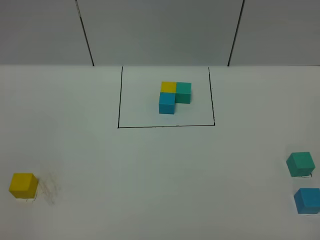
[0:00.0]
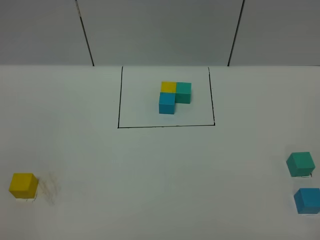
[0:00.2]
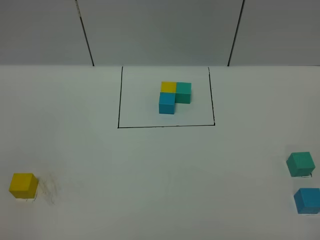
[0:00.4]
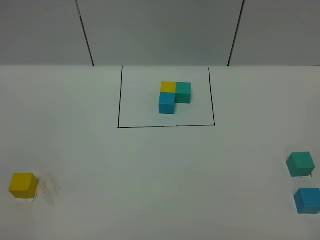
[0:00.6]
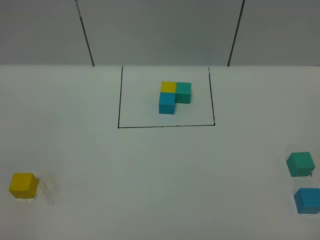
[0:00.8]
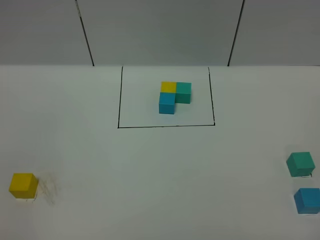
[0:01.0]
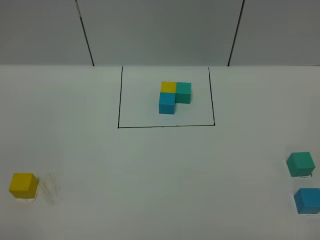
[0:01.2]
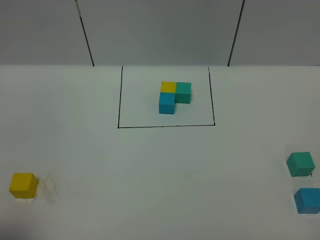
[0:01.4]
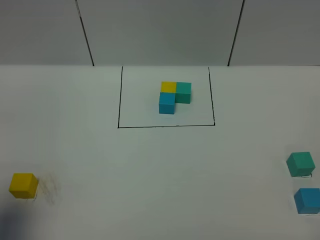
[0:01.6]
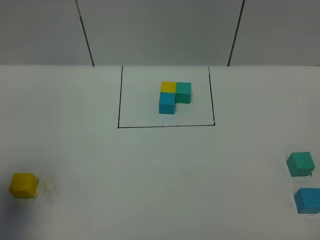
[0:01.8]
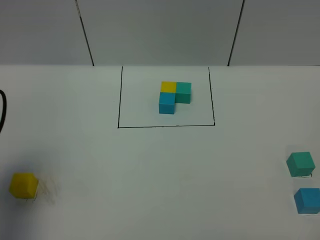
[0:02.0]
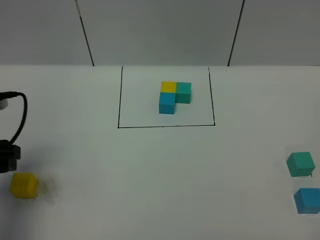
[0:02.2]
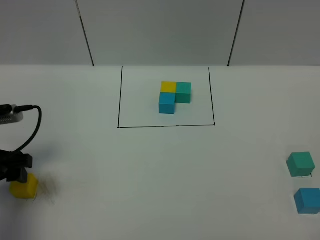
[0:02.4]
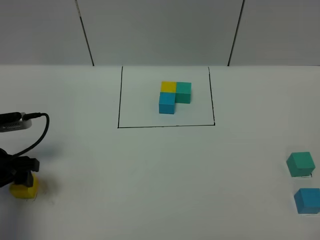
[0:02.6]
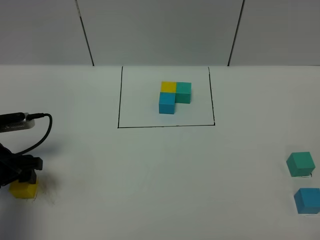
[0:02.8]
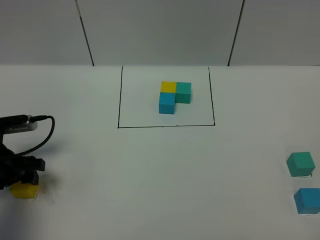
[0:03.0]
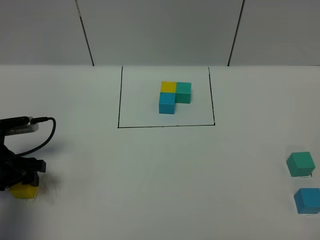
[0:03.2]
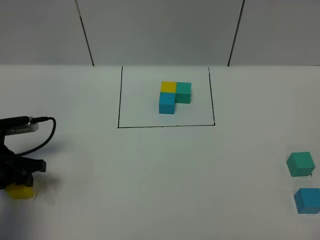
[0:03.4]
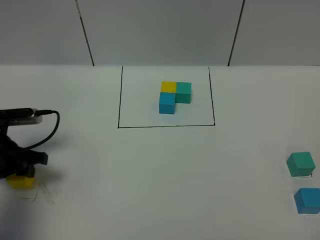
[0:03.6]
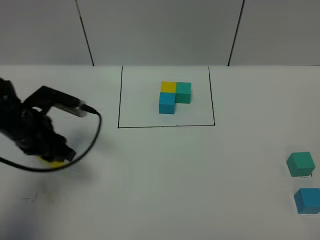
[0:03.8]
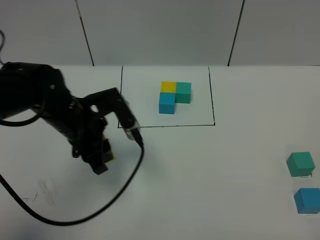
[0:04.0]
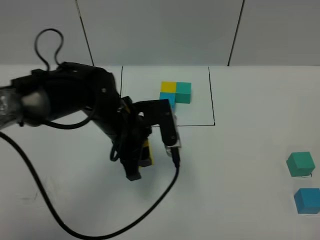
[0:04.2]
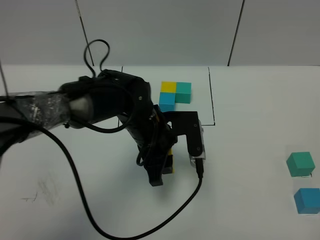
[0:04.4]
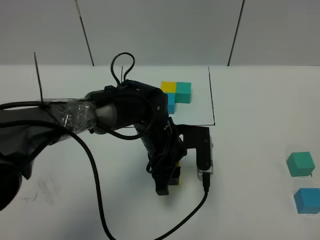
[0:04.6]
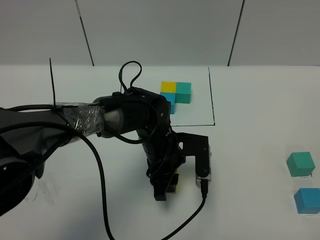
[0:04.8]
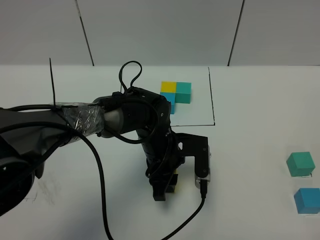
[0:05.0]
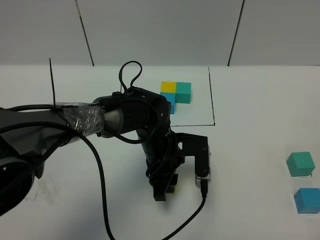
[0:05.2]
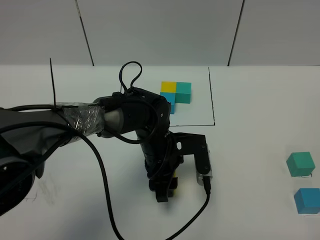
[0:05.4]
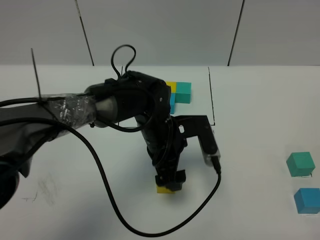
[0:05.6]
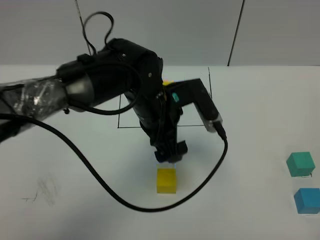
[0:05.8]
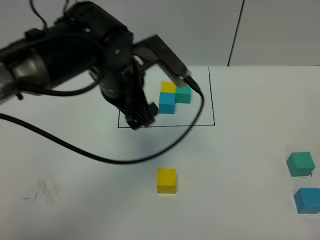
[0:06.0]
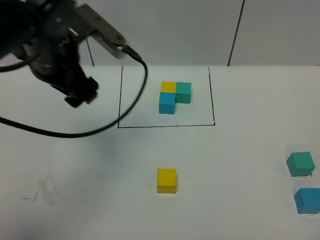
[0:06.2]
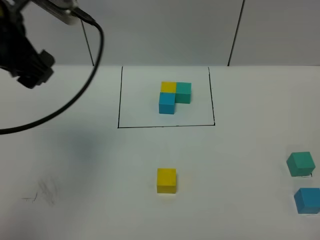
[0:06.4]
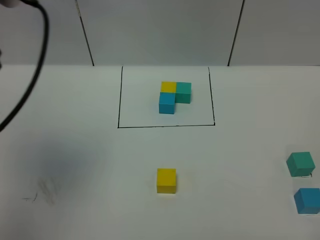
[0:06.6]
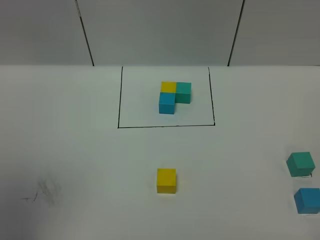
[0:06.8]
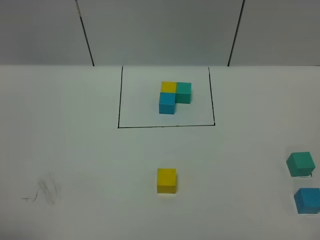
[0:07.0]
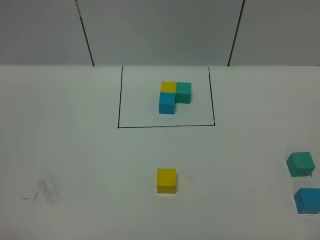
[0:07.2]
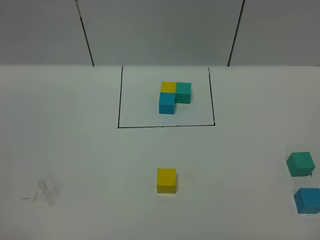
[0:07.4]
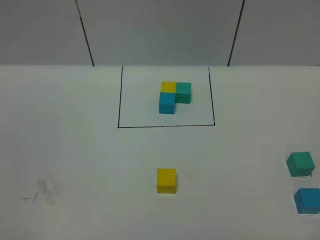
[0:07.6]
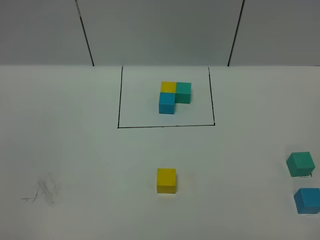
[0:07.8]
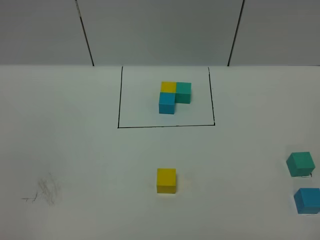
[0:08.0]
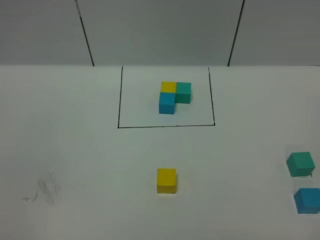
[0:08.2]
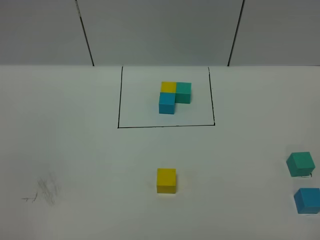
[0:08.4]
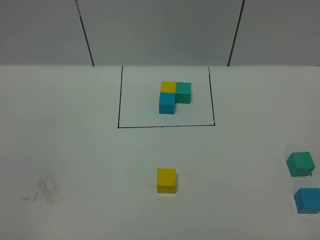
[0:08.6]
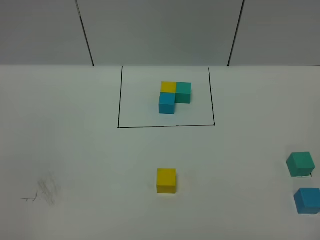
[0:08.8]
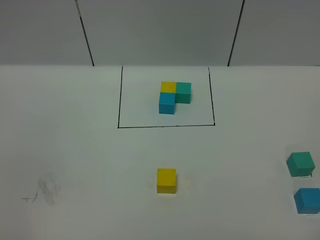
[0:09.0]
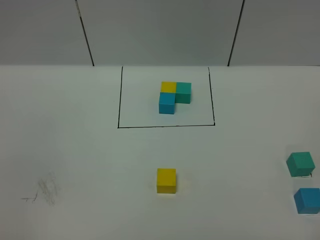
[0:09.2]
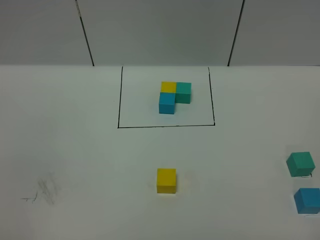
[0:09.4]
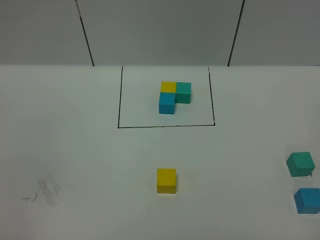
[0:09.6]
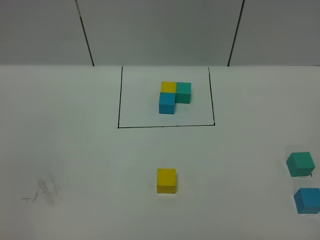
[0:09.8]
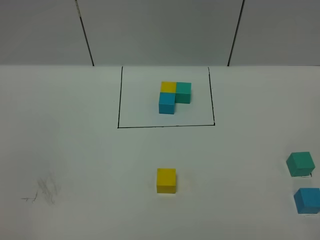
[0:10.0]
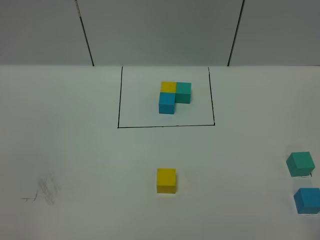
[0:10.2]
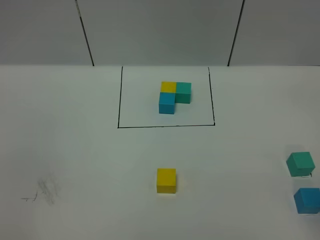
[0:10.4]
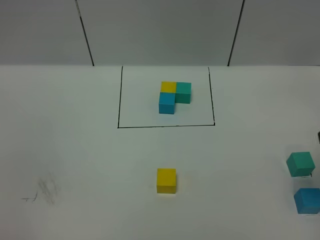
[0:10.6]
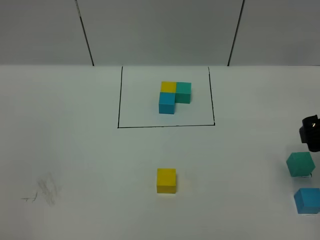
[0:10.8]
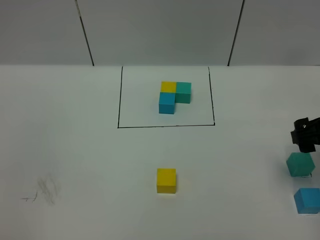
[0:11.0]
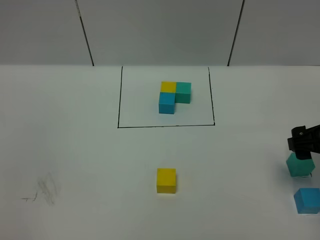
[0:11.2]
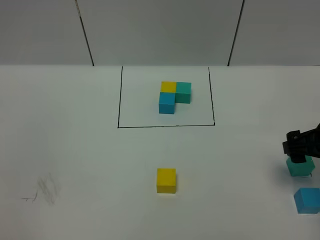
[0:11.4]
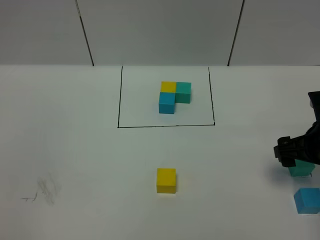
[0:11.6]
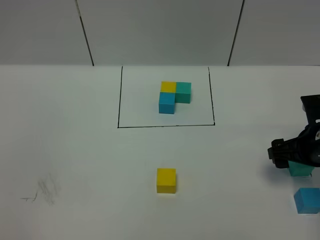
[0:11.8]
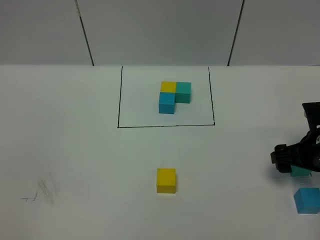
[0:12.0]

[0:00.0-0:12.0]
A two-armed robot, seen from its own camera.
Task of the whole recording: According to the building block template in front, assemble the scattered blocks together.
Step, 0:02.0 to 0:05.6: Put the yellow cube in the center of the table.
0:00.0 to 0:01.6: The left gripper shifts about 15 cm forward.
0:01.6 to 0:03.0: The left gripper heads downward and forward, covering about 25 cm.
0:03.0 to 0:04.4: The left gripper goes some 30 cm to the right, and closes up.
0:04.4 to 0:06.0: The left gripper goes about 10 cm upward, and opens up.
0:06.0 to 0:07.6: The left gripper is displaced backward and to the left by some 50 cm.
0:10.4 to 0:12.0: The right gripper travels downward and forward by some 25 cm.

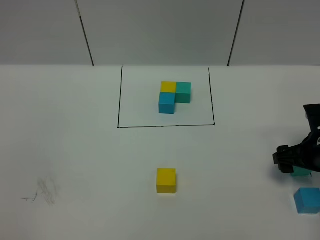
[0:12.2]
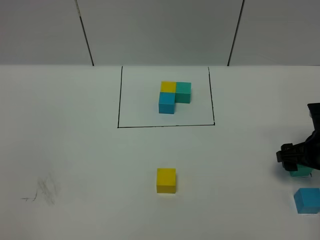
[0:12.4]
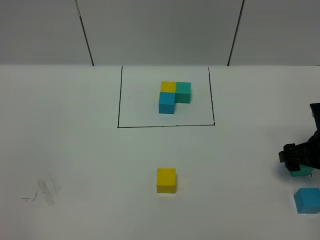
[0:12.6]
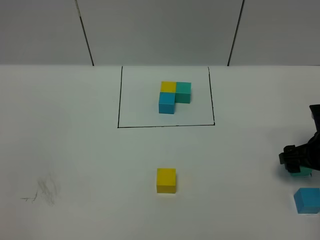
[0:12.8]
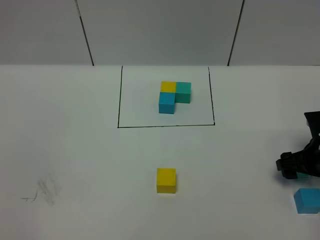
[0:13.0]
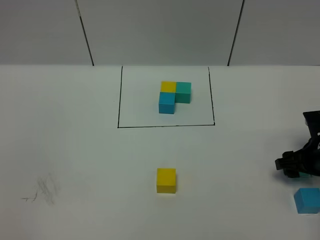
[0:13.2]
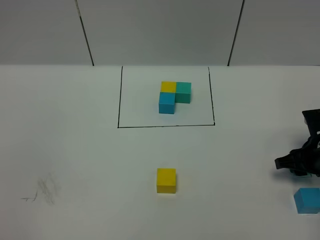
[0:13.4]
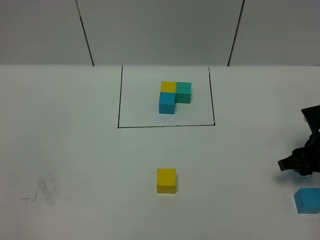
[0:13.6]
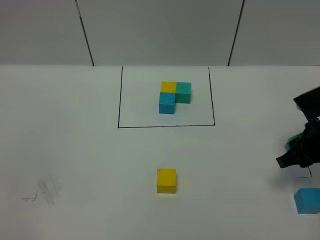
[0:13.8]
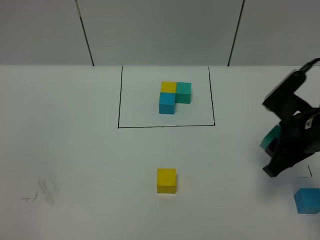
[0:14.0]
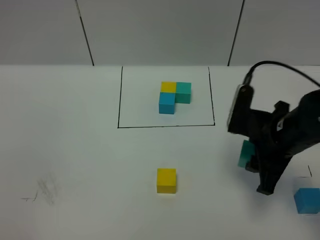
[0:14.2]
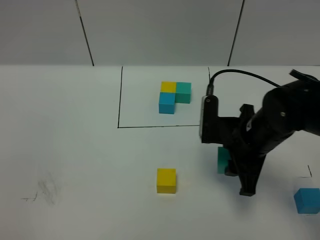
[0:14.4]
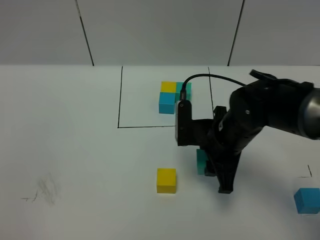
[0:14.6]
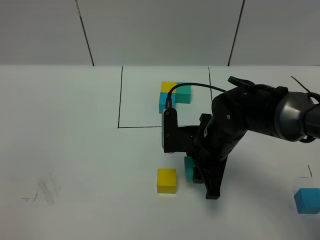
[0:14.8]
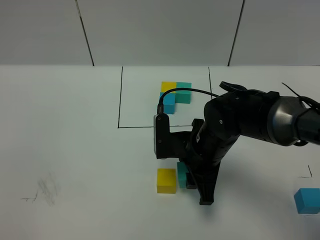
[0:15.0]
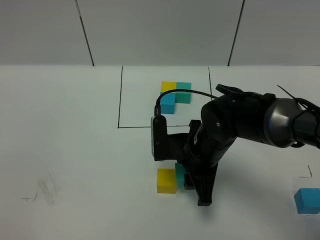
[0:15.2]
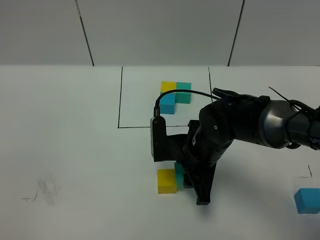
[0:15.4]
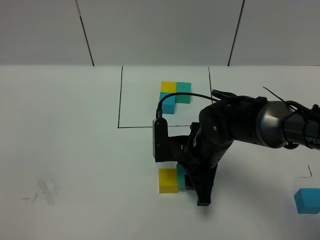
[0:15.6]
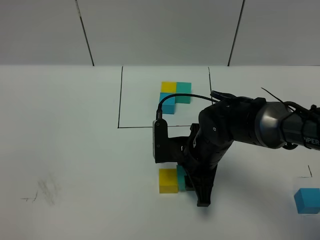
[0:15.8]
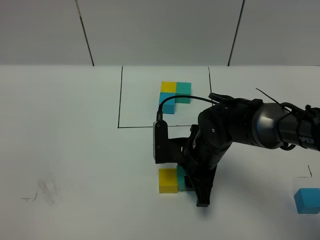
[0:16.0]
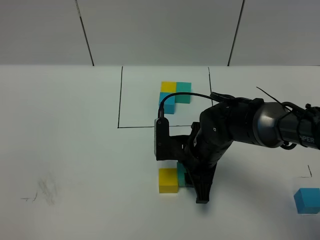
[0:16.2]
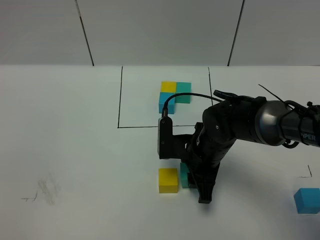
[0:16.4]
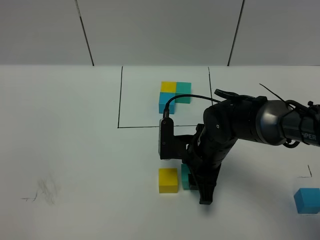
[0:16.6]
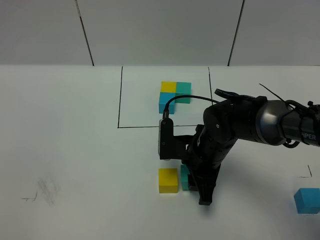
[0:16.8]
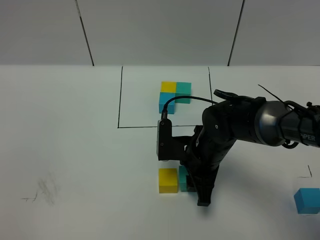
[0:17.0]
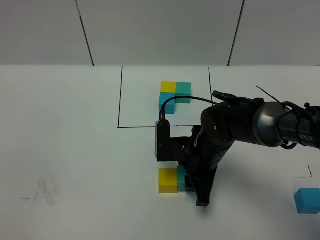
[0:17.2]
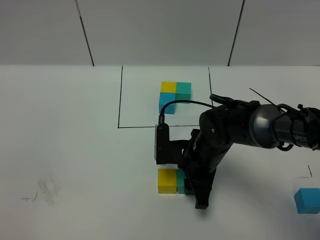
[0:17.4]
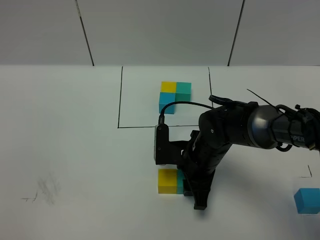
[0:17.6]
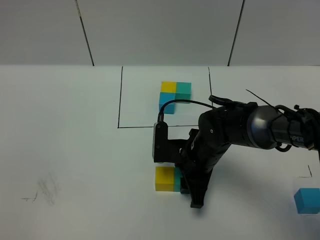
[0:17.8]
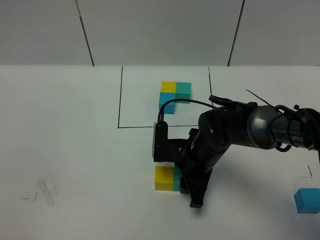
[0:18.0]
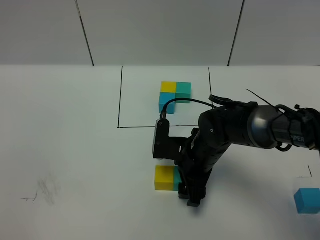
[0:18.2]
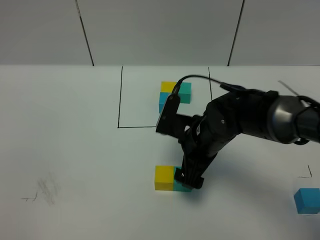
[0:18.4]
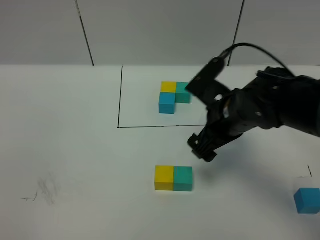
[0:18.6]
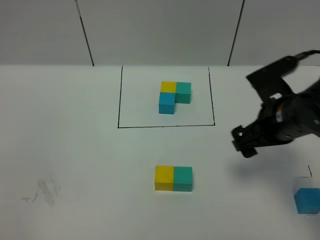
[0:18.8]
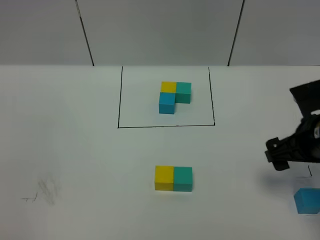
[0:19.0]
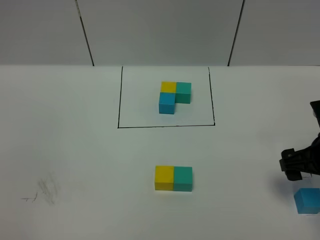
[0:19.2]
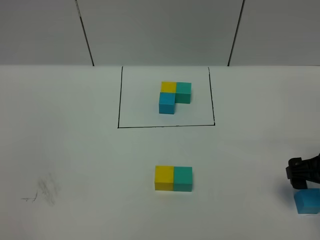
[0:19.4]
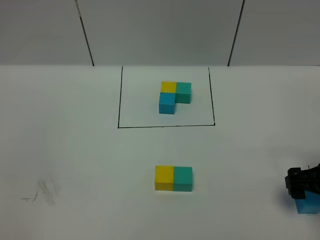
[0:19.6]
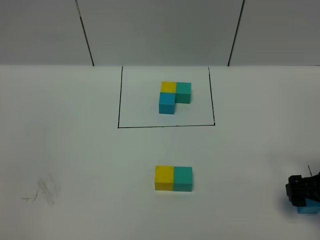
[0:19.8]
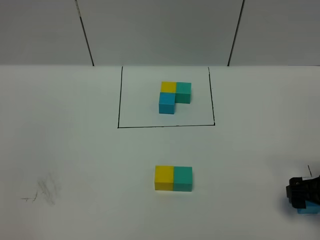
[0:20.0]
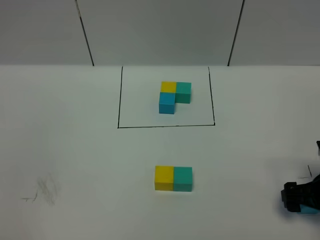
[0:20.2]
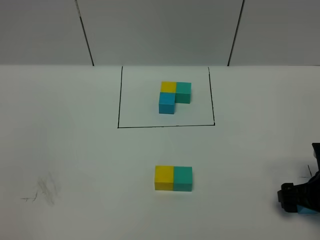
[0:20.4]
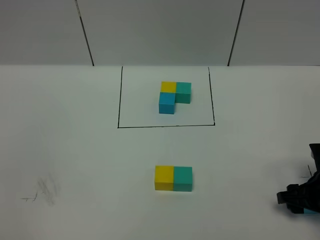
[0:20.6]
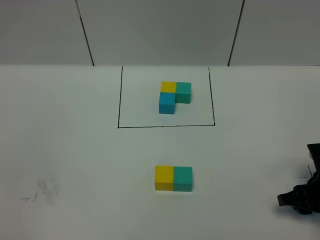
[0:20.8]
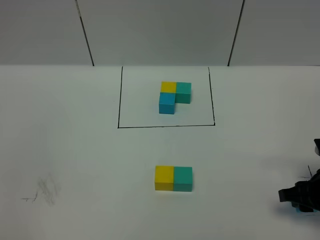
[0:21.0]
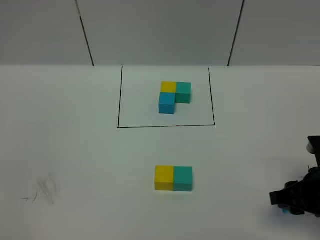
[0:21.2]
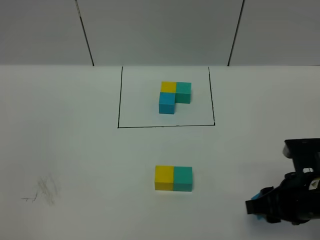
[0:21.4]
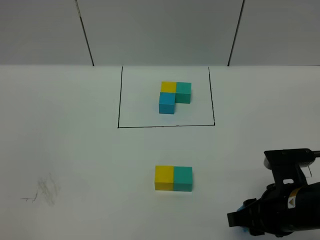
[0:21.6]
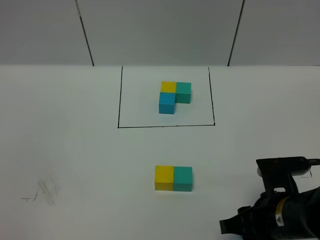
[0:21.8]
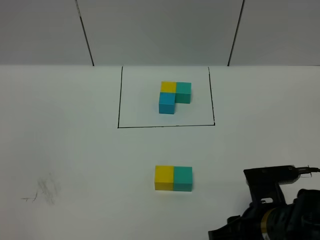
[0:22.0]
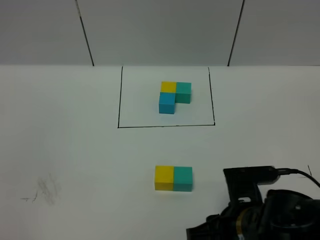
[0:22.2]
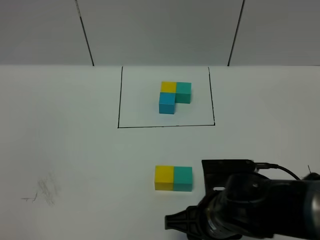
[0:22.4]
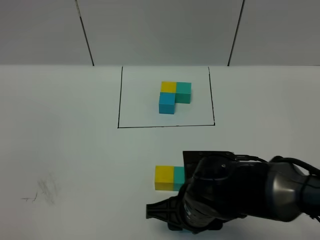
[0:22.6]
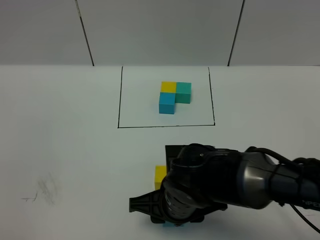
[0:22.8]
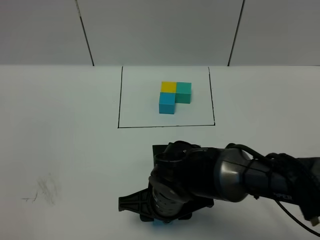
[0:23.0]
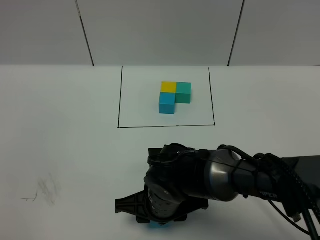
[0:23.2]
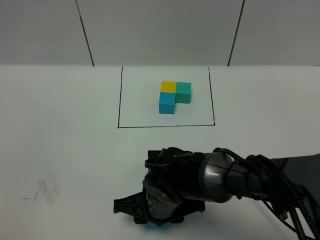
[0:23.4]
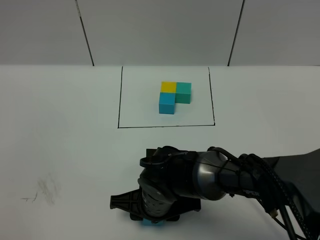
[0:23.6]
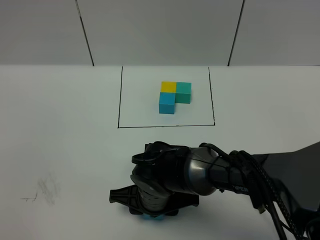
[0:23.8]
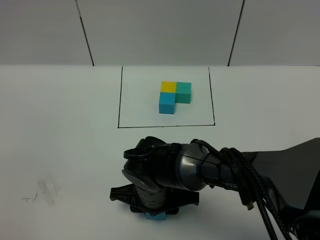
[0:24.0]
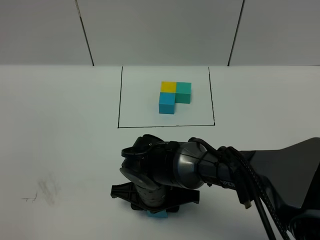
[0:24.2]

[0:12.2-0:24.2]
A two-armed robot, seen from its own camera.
Task of the whole recording: According to the building block template in front, assemble the scattered blocks together.
Step, 0:12.2 to 0:18.2: Put the green cube on the right of the yellow cube.
0:12.2 to 0:13.8: The right gripper shifts some 5 cm upward, and closes up.
0:13.8 to 0:15.2: The right gripper heads to the left, covering approximately 20 cm.
0:15.2 to 0:16.6: The grippers stay close to where they were, moving slightly.
0:16.6 to 0:18.2: The right gripper opens up.
0:18.2 to 0:19.8: The right gripper shifts approximately 20 cm to the right.
0:19.8 to 0:21.2: The right gripper closes its fingers.
0:21.2 to 0:22.6: The right gripper heads to the left, covering about 20 cm.
0:22.6 to 0:24.2: The right gripper travels to the left and forward by roughly 10 cm.
